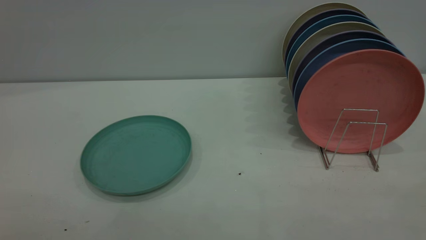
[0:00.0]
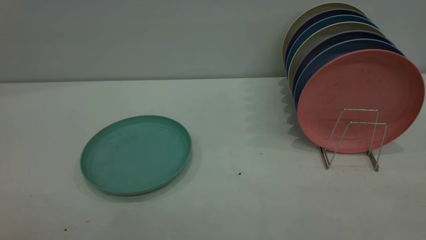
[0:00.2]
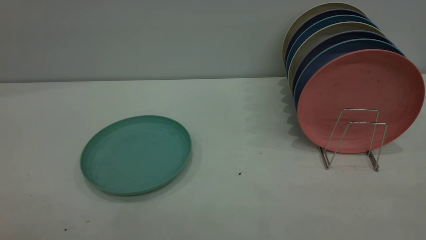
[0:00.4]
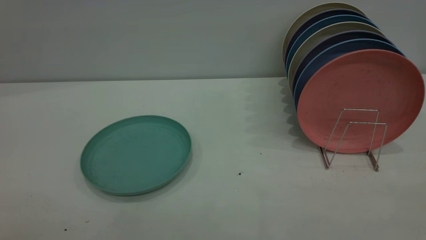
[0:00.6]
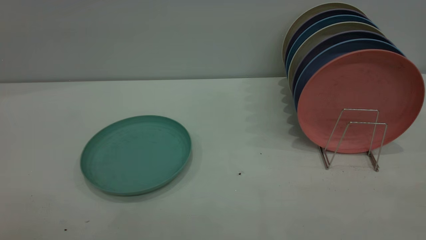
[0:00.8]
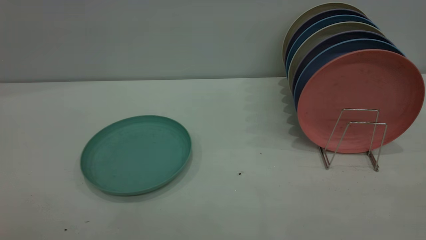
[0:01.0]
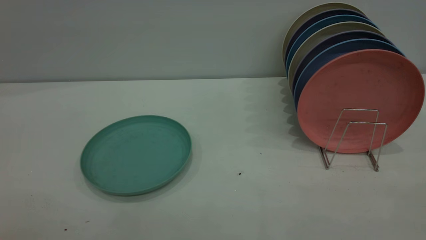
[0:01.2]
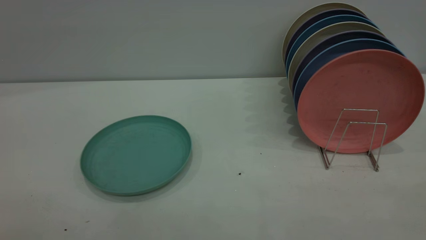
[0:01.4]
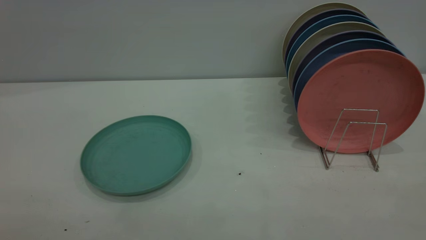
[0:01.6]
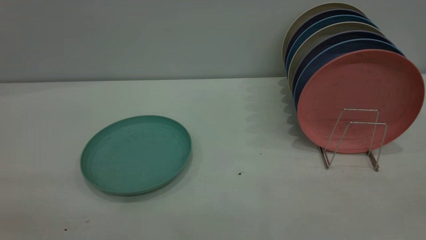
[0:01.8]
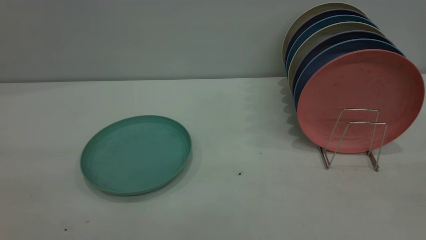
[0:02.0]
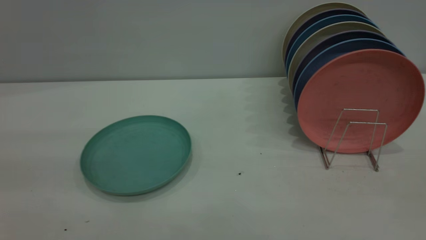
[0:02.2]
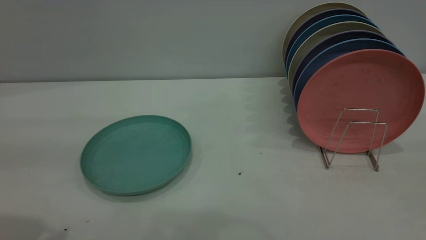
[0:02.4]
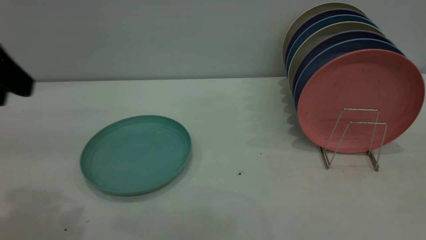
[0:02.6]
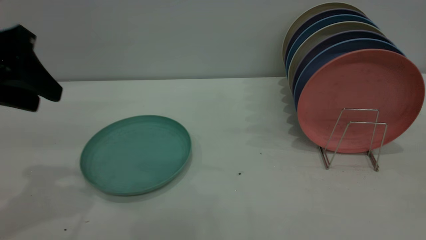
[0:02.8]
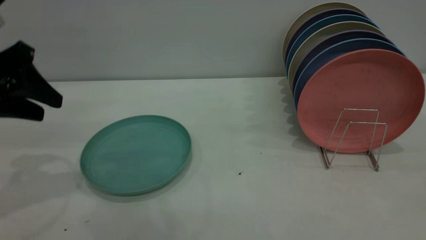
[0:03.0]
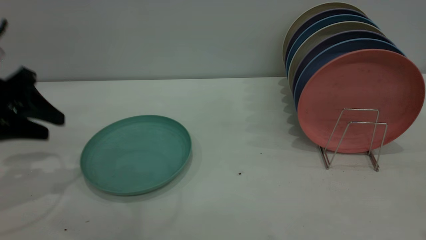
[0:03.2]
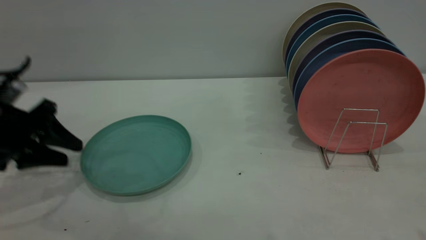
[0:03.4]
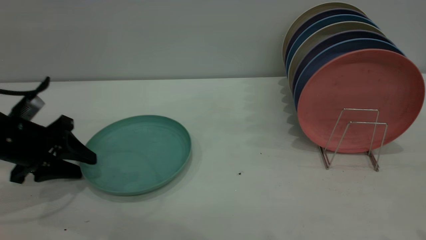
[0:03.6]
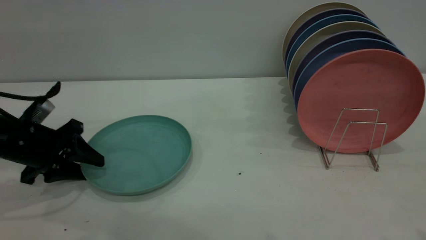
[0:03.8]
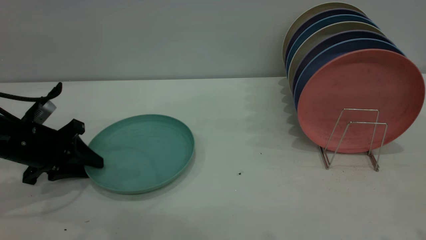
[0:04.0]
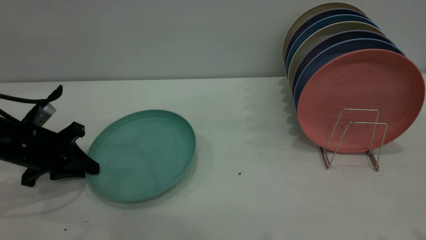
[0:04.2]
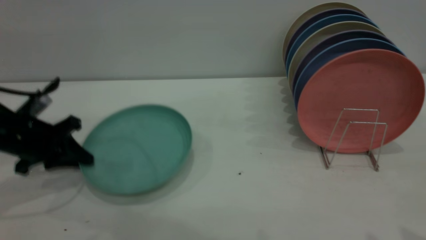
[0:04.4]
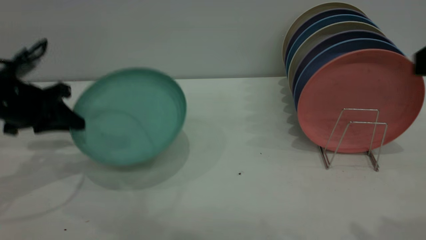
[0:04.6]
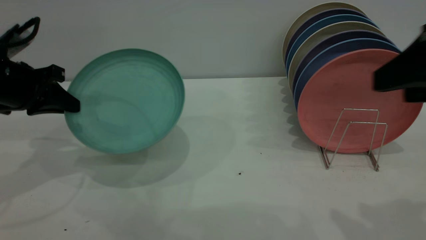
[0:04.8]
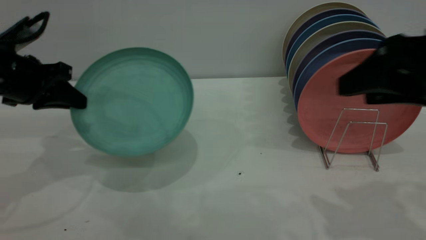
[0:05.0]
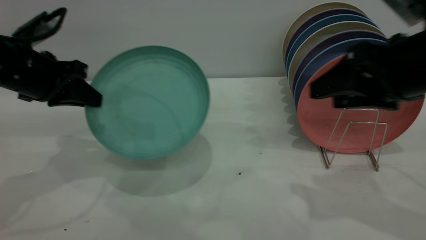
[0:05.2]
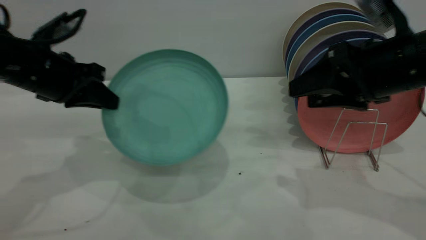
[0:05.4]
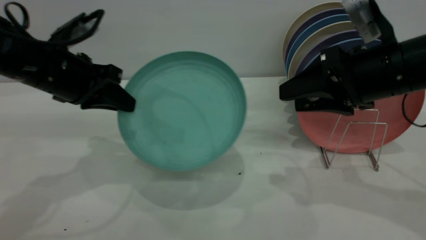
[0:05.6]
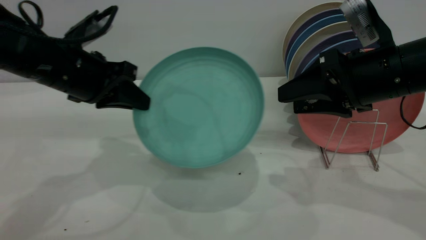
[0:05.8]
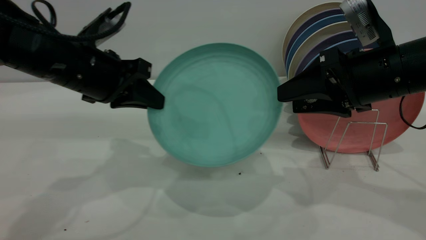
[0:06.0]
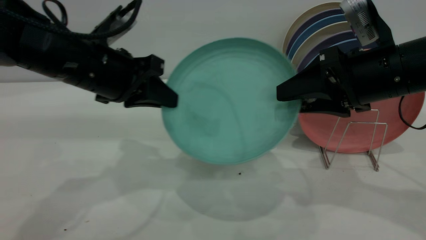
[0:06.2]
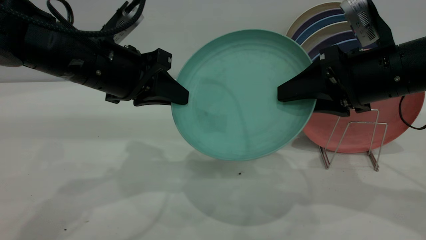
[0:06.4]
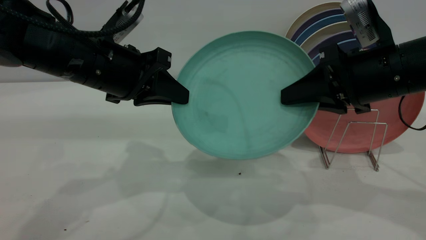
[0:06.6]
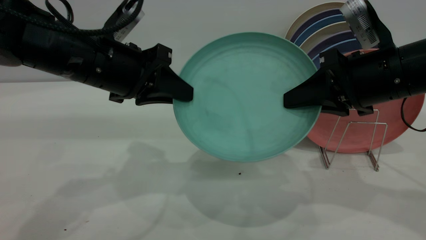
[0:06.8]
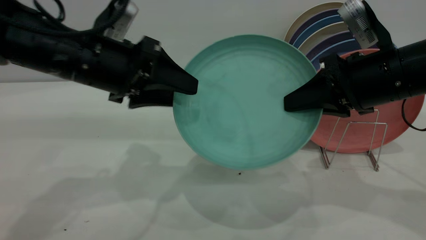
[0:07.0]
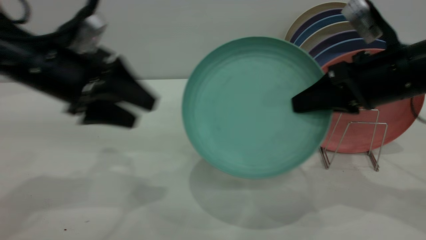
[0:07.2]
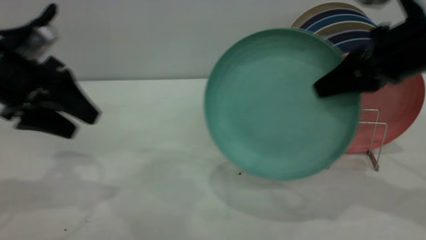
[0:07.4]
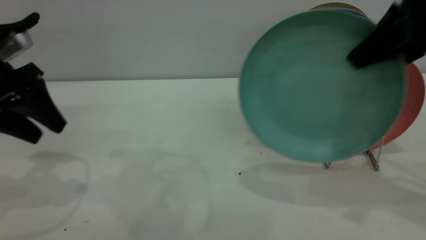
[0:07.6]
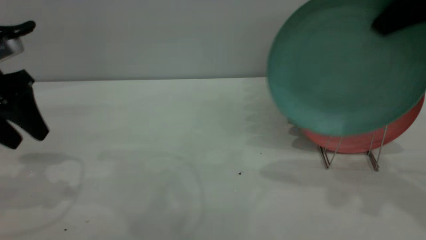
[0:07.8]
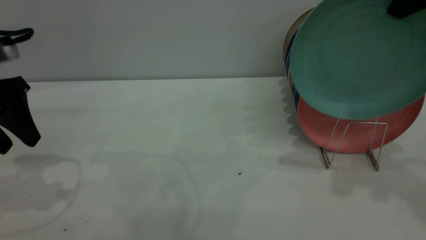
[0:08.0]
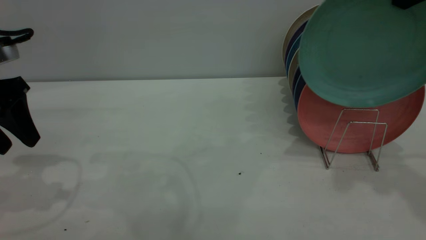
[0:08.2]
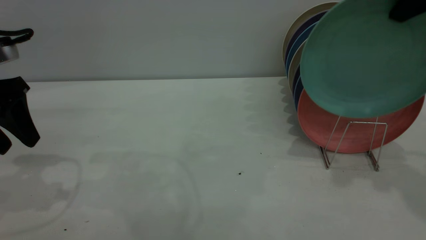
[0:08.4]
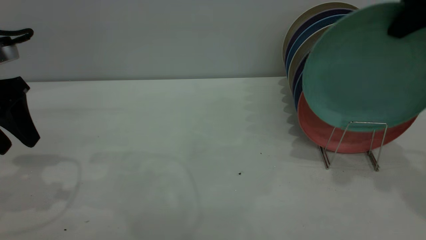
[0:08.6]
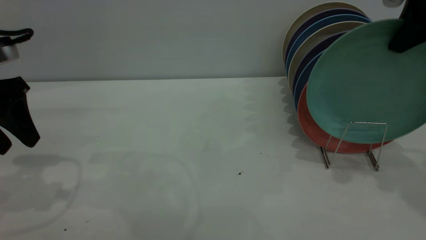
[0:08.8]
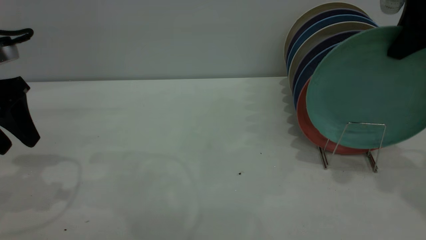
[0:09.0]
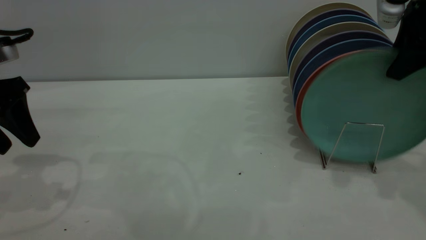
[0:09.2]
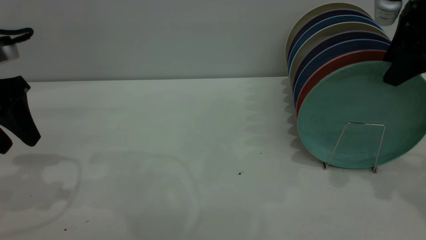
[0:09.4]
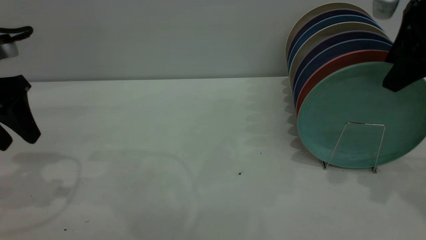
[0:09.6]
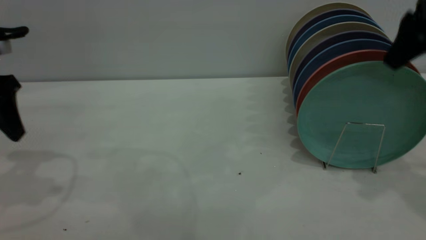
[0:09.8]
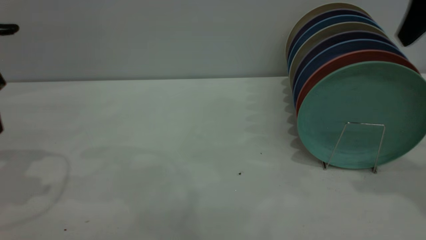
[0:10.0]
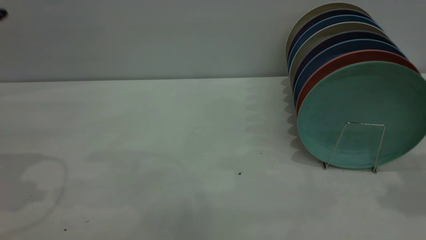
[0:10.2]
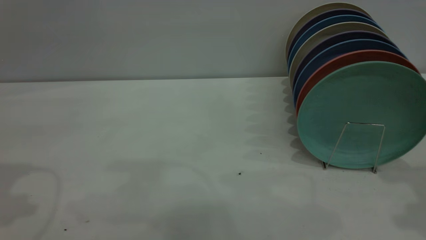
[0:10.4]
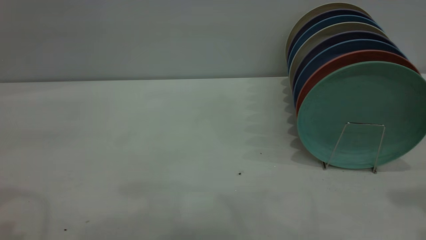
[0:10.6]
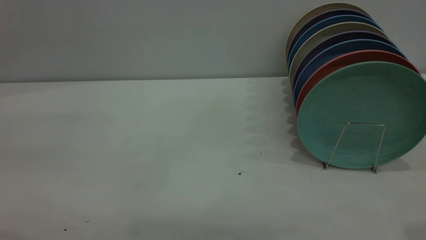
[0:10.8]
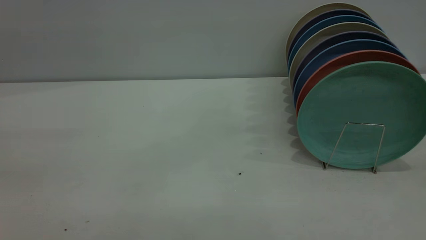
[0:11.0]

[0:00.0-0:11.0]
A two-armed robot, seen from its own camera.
Task of the whole recording: the left gripper grasp the green plate, the left gripper pass the green plate to the right gripper, and the right gripper place the green plate on the plate rack.
Step, 0:00.0 to 0:04.4: Pick up the plate with the left gripper.
Step, 0:04.6 to 0:07.2: Pass the plate from the left gripper to the right gripper.
Step, 0:07.4 to 0:09.8: Place the plate on the shelf.
0:00.0 to 0:01.6: Both grippers stay put.
0:01.6 to 0:03.2: The left gripper heads forward and downward, covering roughly 40 cm.
0:03.2 to 0:04.8: The right gripper goes some 10 cm forward and downward, while the left gripper reaches some 10 cm downward, then returns, and closes.
0:04.8 to 0:06.2: The left gripper moves to the right, about 15 cm, while the right gripper is displaced forward and downward by roughly 15 cm.
0:06.2 to 0:07.8: The left gripper moves to the left, approximately 15 cm, and opens, while the right gripper is displaced upward by approximately 15 cm, and closes up.
0:07.8 to 0:09.4: The right gripper is displaced downward by about 5 cm, and opens up.
0:09.4 to 0:11.0: The two grippers go about 25 cm backward and upward.

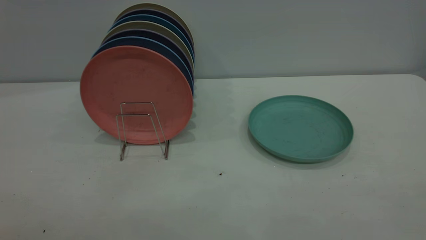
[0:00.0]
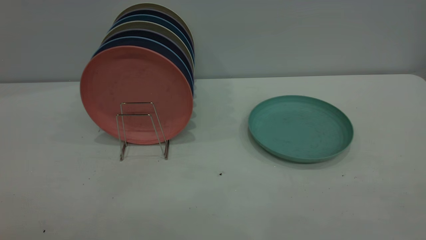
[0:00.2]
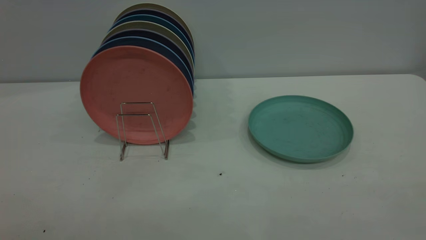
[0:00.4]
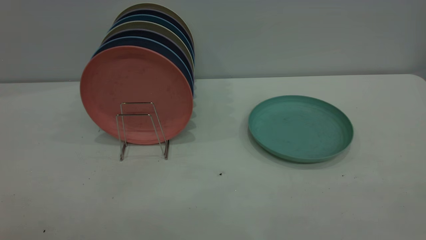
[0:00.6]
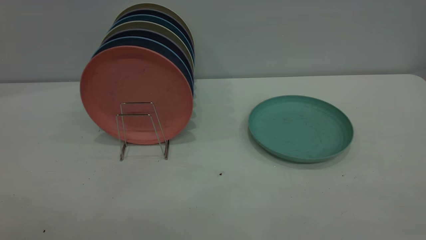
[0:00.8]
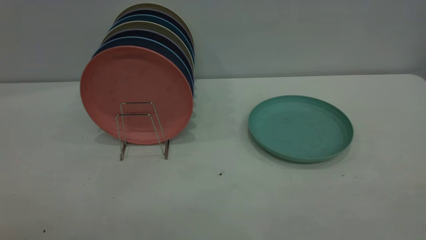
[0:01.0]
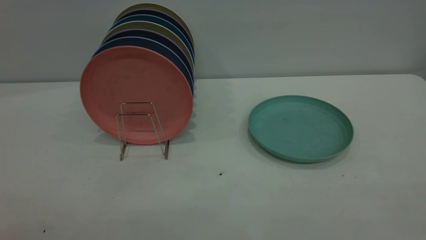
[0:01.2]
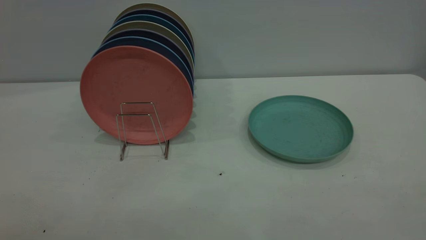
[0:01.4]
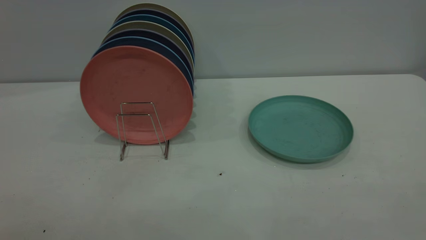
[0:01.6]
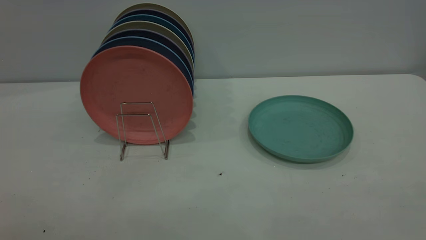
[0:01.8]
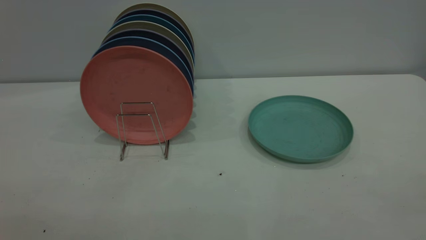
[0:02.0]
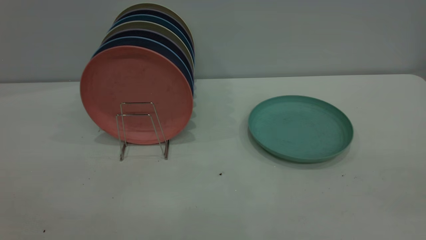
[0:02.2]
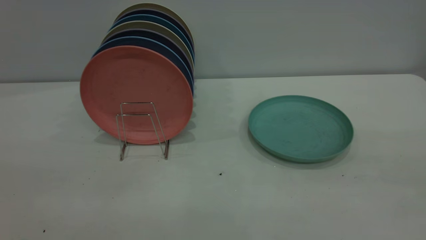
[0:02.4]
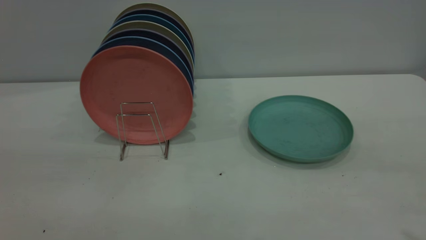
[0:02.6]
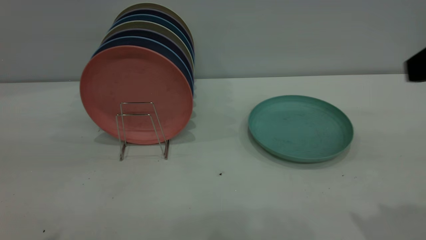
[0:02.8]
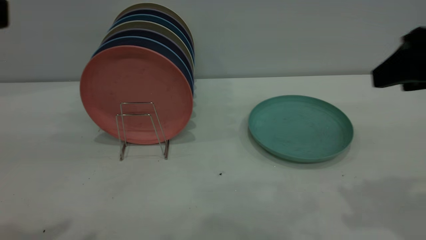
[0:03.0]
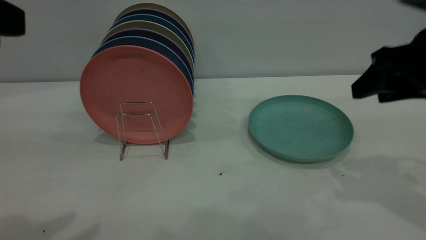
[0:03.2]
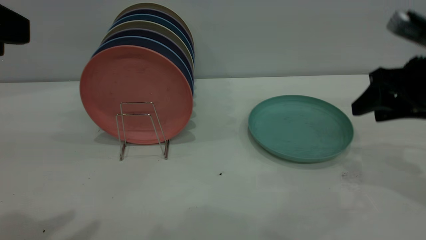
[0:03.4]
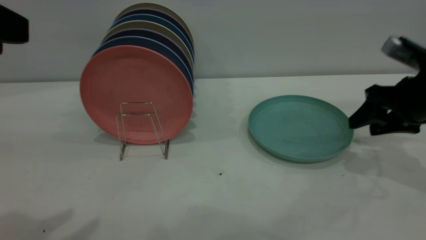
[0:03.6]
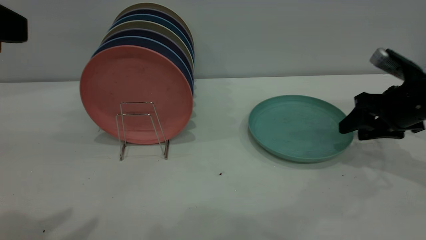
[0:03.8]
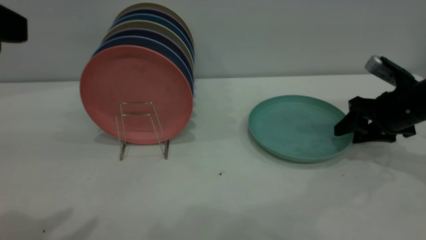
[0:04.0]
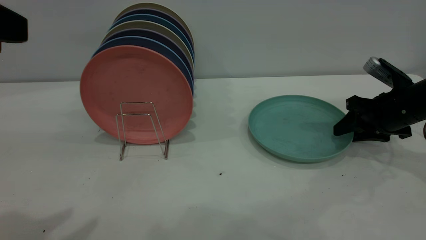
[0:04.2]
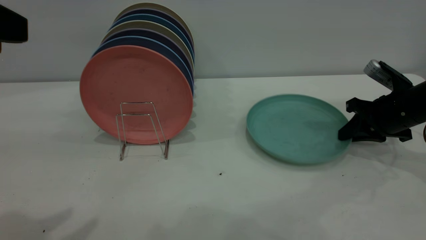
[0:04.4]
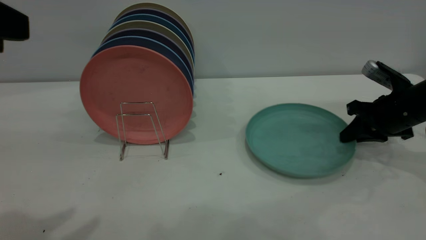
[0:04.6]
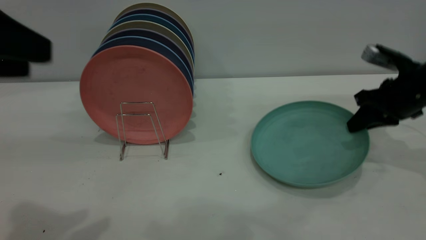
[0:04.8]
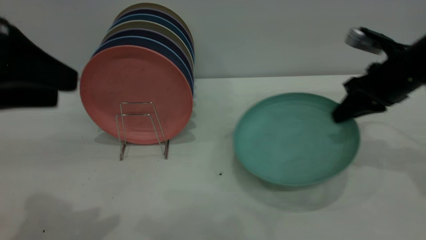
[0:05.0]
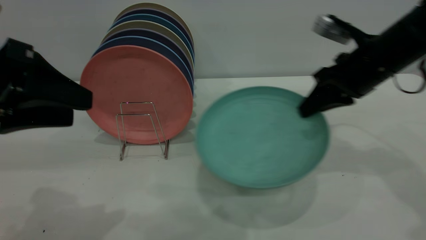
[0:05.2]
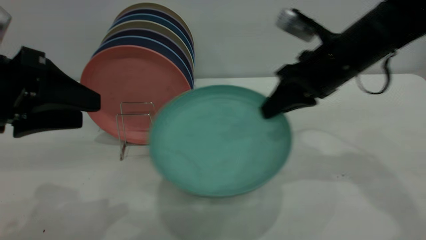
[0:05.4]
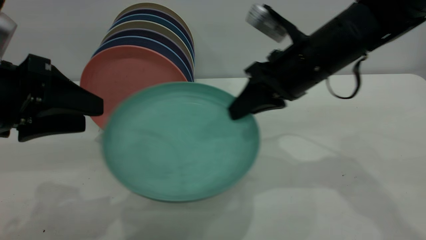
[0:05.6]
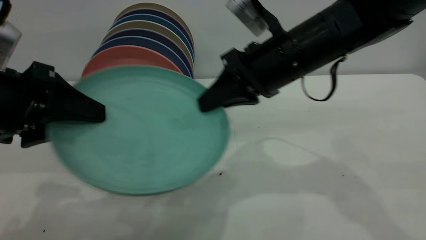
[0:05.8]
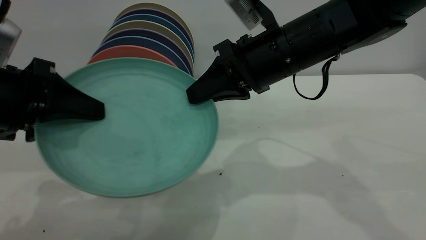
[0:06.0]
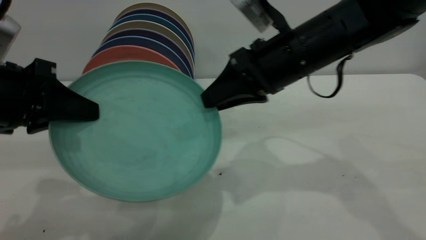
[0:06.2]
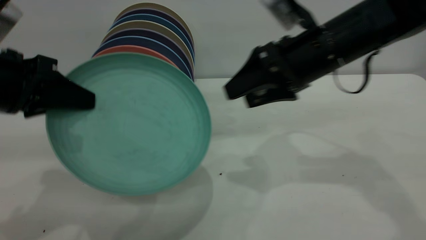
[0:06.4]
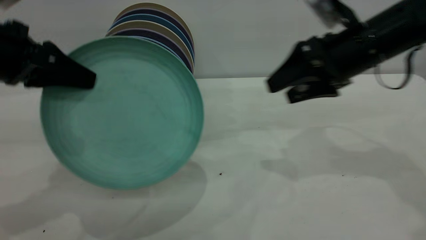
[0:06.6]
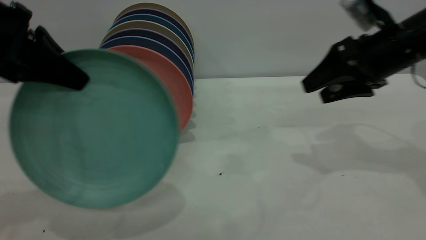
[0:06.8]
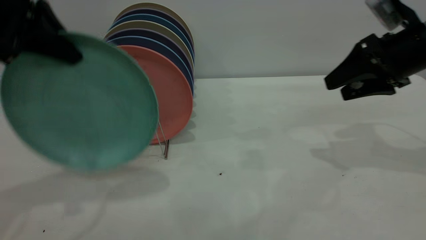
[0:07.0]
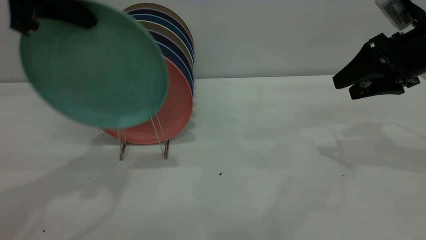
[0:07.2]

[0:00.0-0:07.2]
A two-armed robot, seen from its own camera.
Task of the whole recording: the right gripper grasp the green plate, the right gripper pass the green plate to the left gripper, and the left gripper place the green plate on the plate rack.
Step, 0:00.0 to 0:04.8: Pick up the plate with the right gripper.
Step, 0:05.0 to 0:06.2: Pass the plate from the right gripper to the left gripper.
0:00.0 to 0:01.4: Both grippers stay about where they are.
0:02.8 to 0:04.4: The right gripper travels downward and forward by roughly 30 cm, and closes up.
0:04.4 to 0:05.8: The left gripper goes roughly 15 cm downward and forward. The right gripper moves to the left and upward, some 25 cm.
0:05.8 to 0:07.2: The left gripper is displaced upward and forward by some 20 cm, and closes; the right gripper shifts roughly 20 cm to the right, and opens up.
